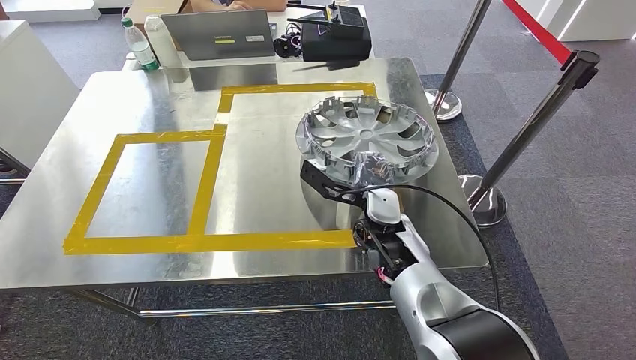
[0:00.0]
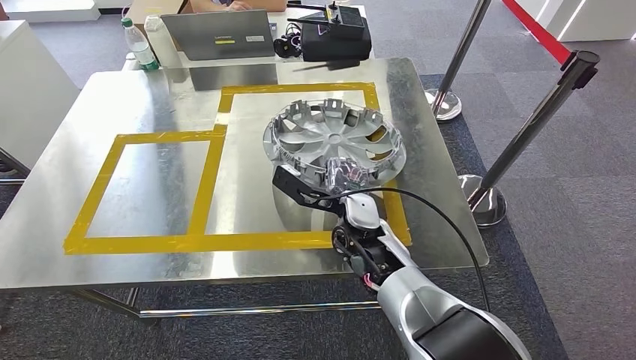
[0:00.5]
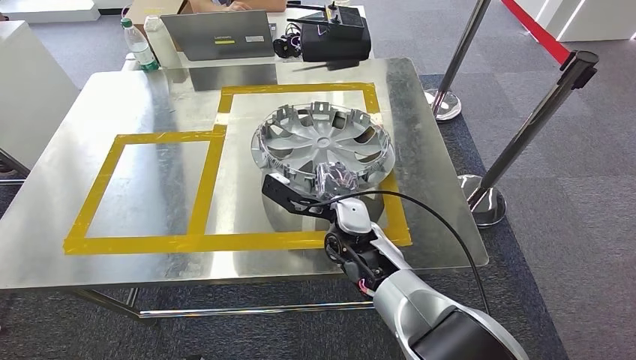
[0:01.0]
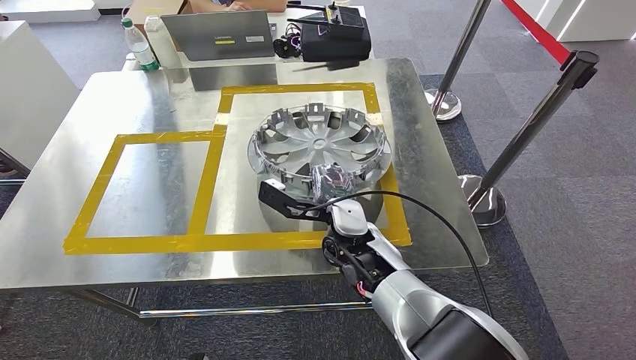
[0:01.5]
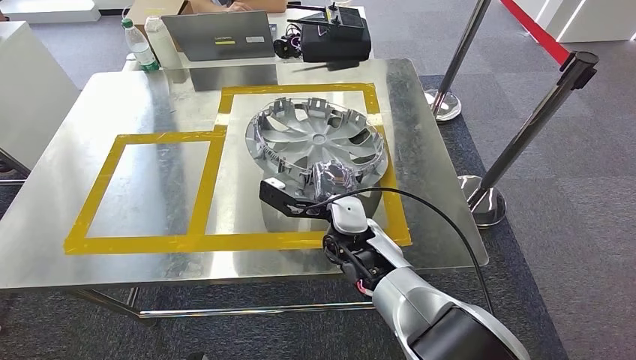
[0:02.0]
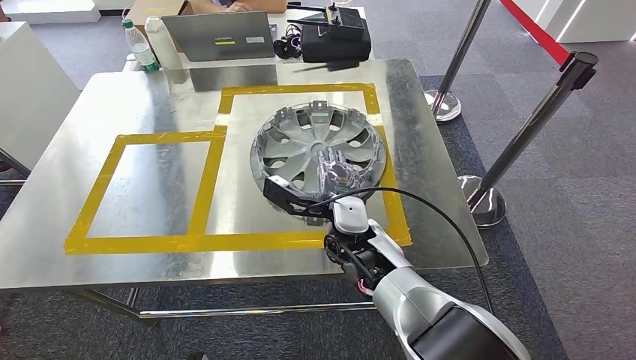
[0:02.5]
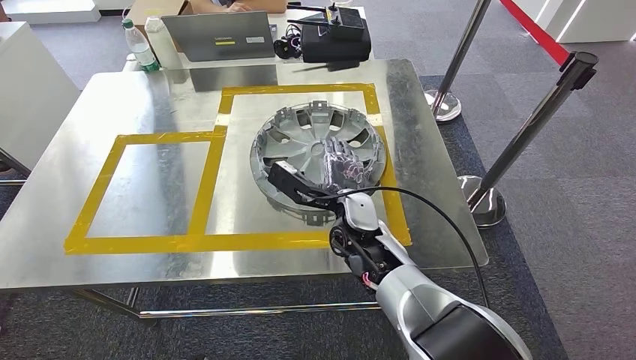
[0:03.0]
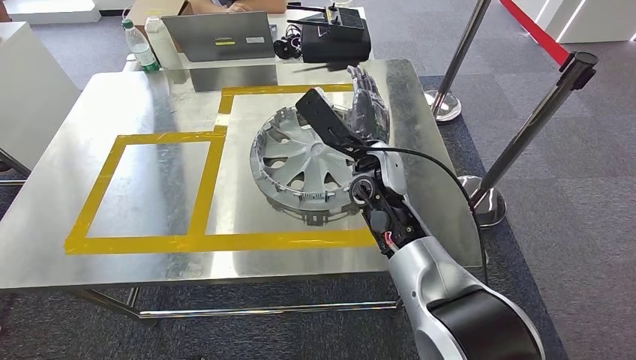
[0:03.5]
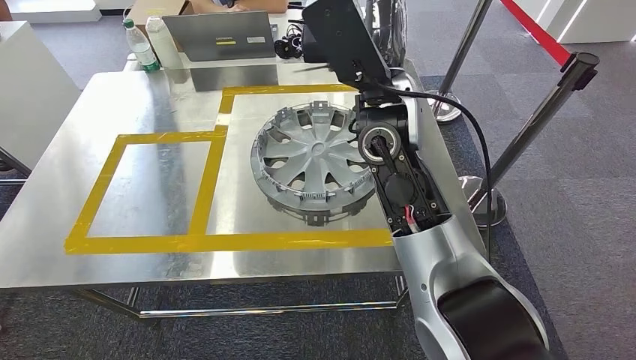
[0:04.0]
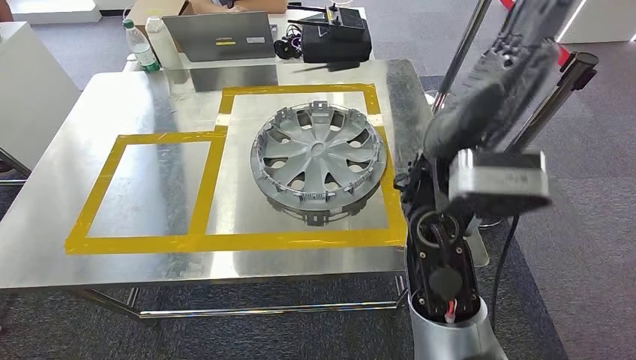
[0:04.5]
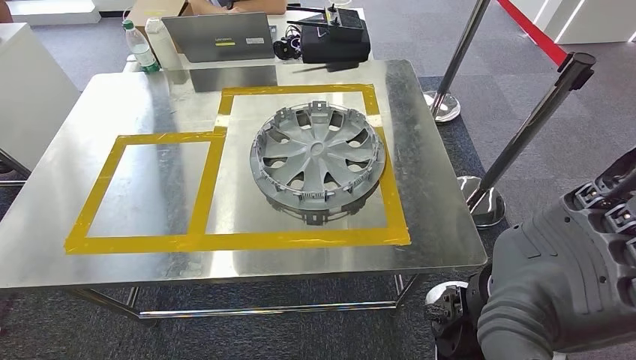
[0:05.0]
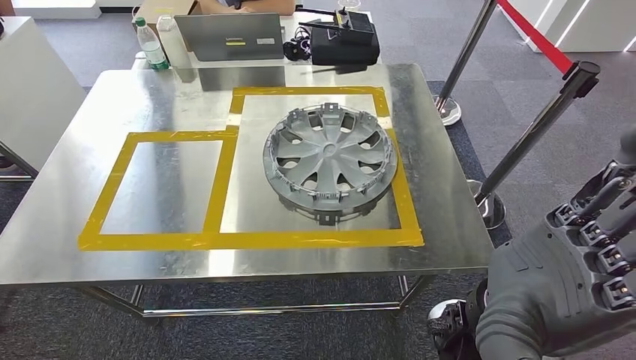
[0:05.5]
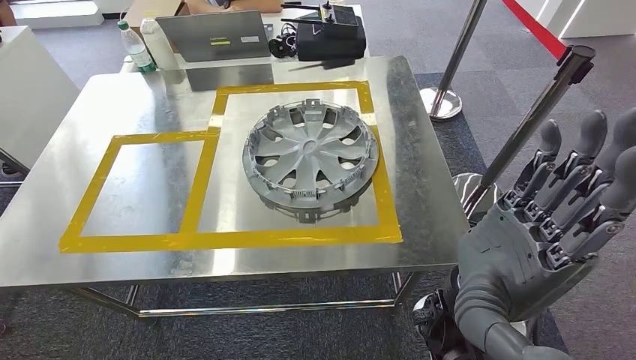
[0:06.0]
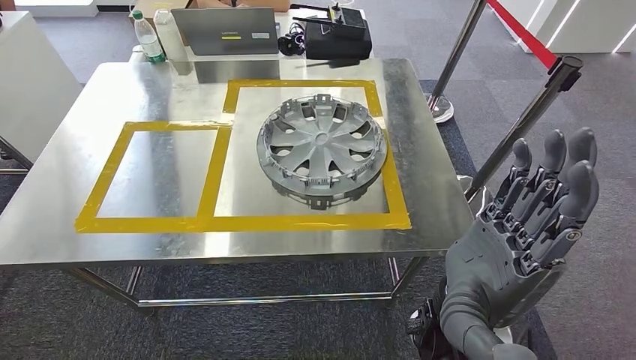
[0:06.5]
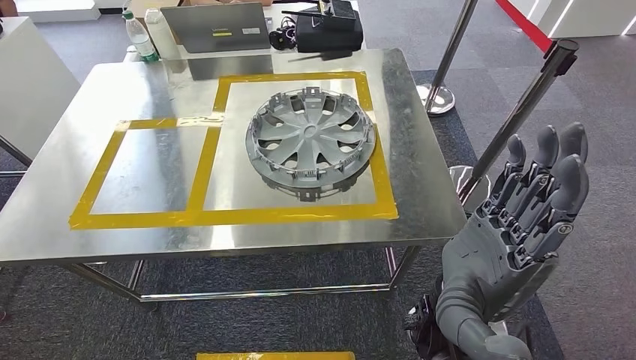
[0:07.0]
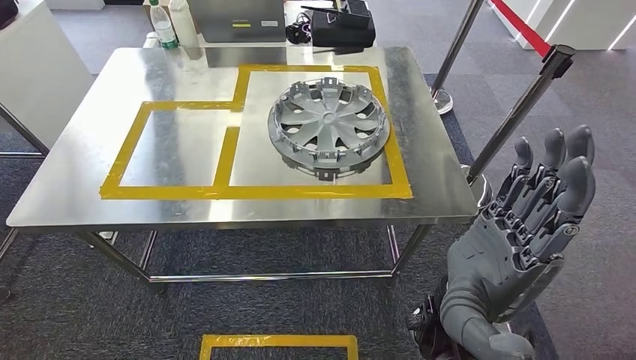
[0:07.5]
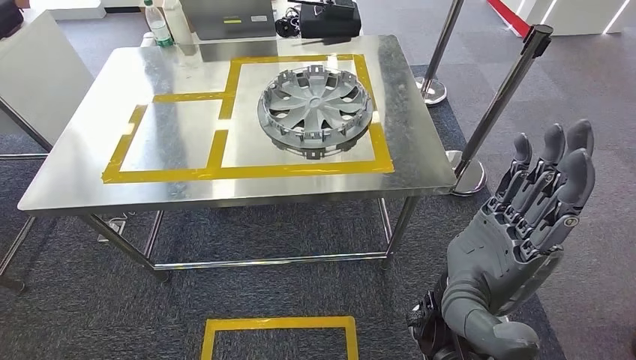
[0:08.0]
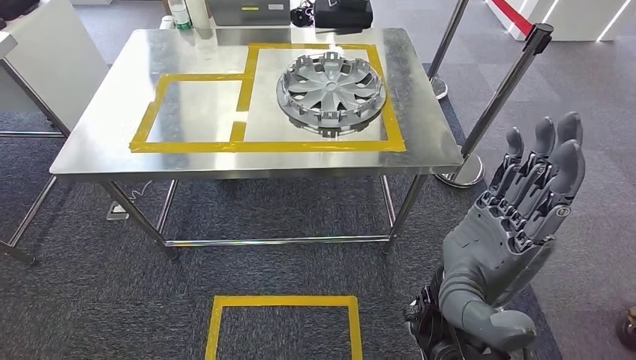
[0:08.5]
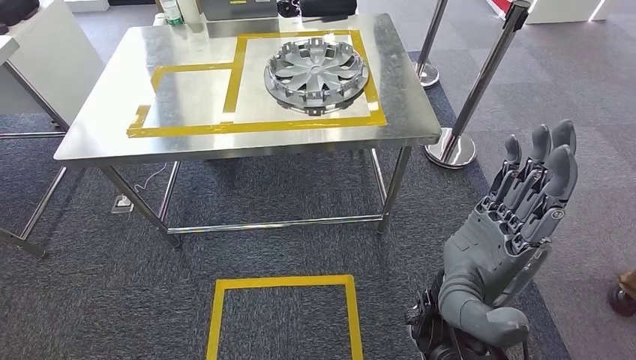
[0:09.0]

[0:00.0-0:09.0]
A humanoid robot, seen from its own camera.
Step, 0:00.0 to 0:05.0: Insert the large material into the corresponding hole on the workbench.
0:00.0 to 0:02.0: The hands make only small movements.
0:02.0 to 0:04.5: The right hand shifts about 20 cm upward.

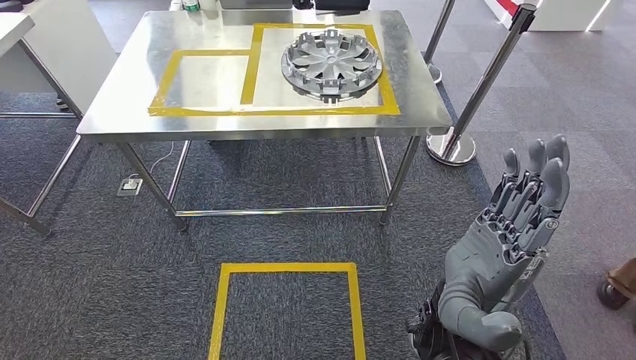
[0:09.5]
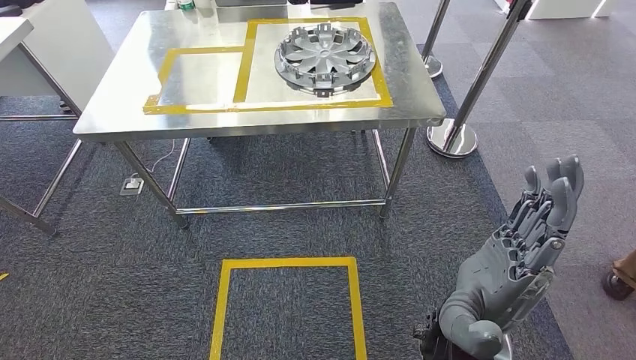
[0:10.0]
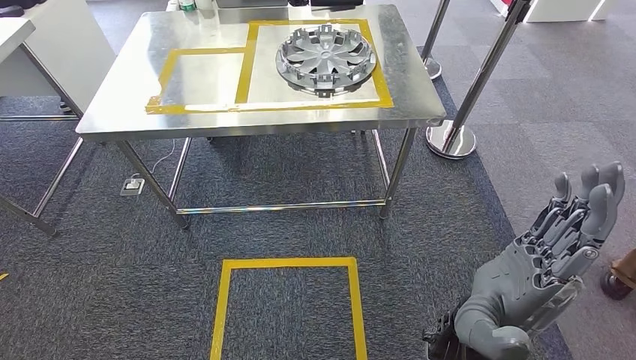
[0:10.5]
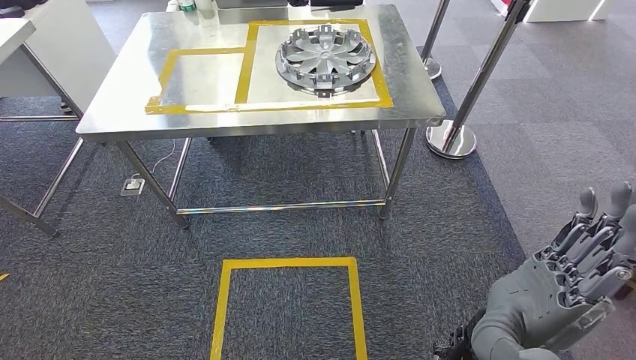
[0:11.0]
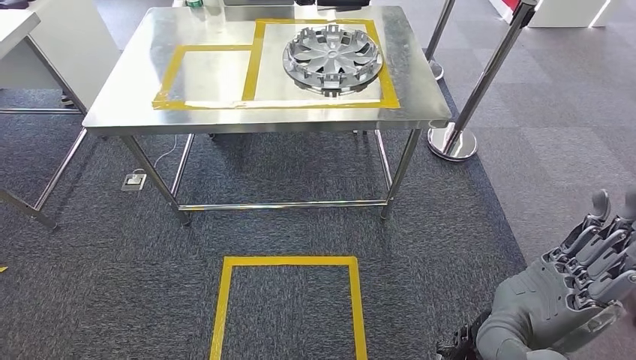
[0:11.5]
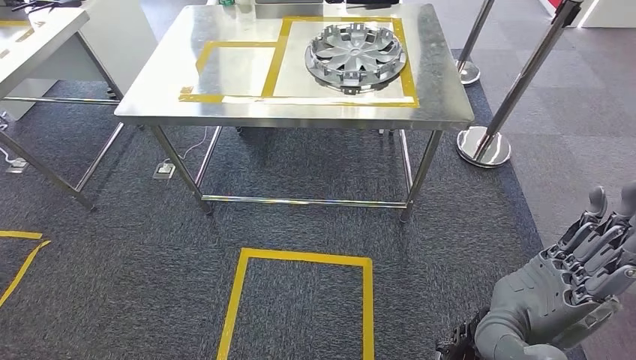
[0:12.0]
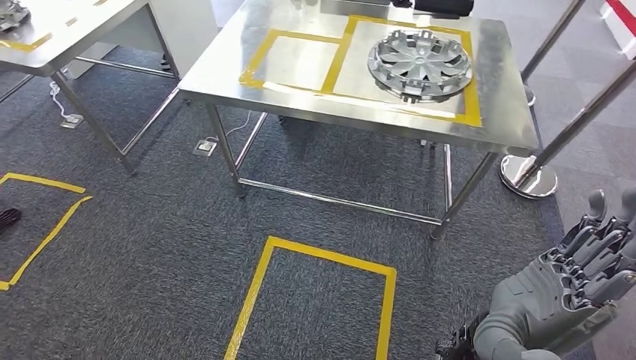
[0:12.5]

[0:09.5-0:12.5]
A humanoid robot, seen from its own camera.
Step, 0:09.5 to 0:12.5: Move to the initial position of the shelf.
